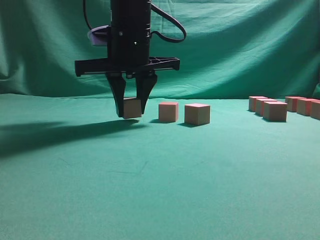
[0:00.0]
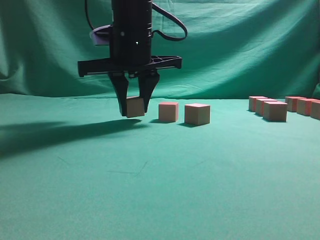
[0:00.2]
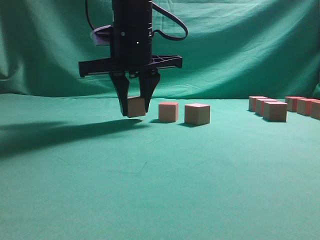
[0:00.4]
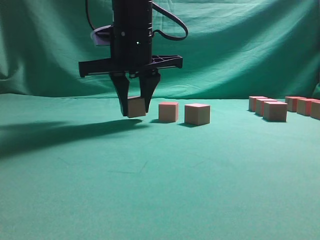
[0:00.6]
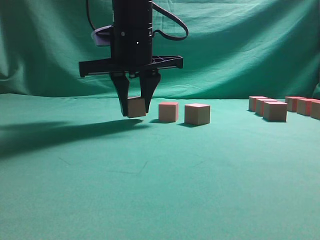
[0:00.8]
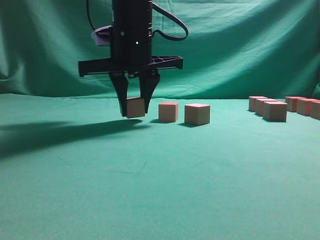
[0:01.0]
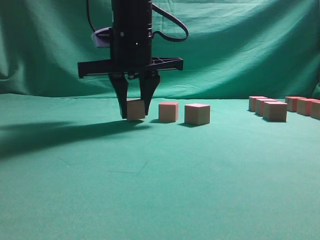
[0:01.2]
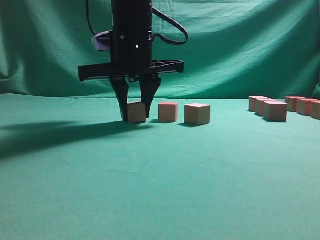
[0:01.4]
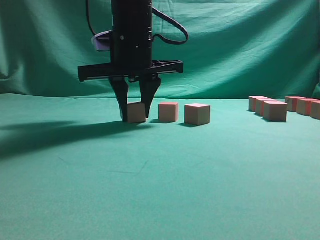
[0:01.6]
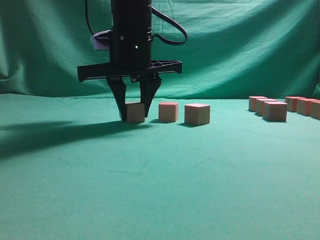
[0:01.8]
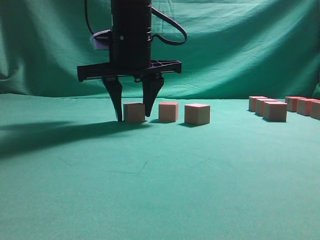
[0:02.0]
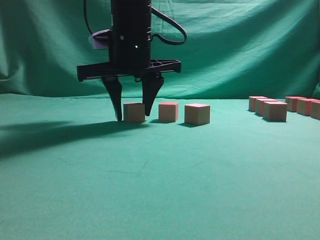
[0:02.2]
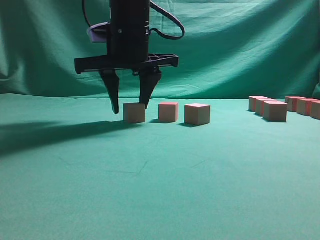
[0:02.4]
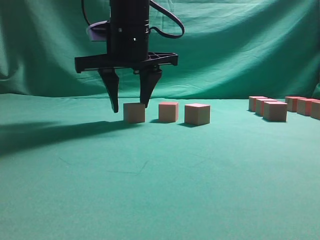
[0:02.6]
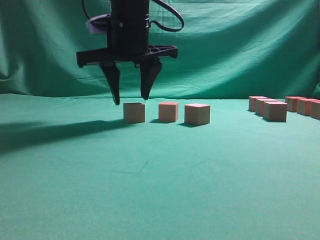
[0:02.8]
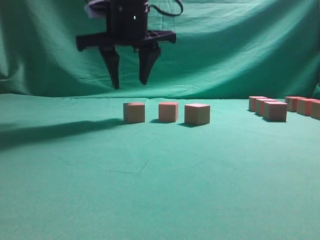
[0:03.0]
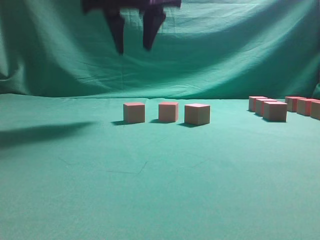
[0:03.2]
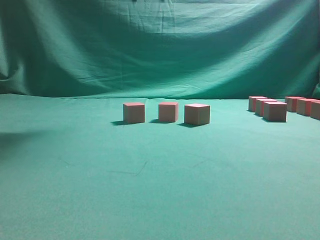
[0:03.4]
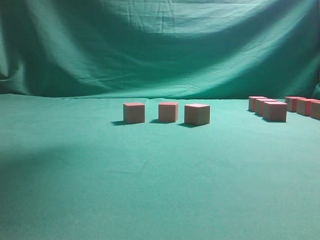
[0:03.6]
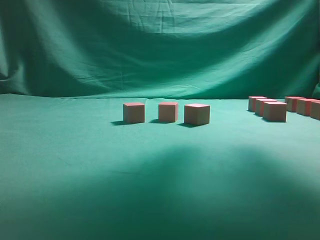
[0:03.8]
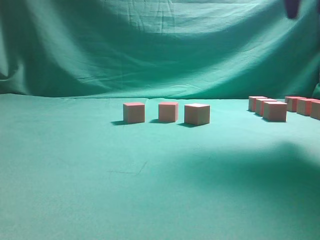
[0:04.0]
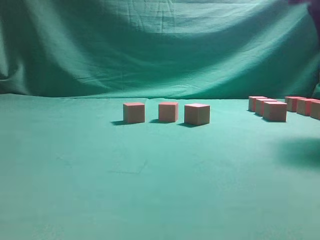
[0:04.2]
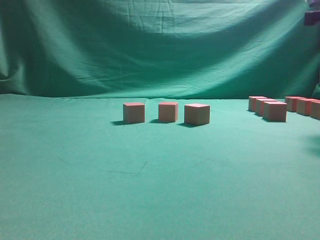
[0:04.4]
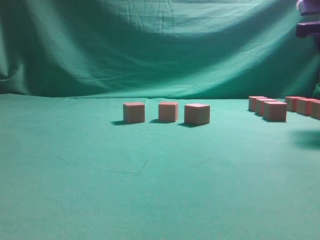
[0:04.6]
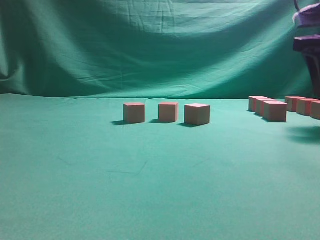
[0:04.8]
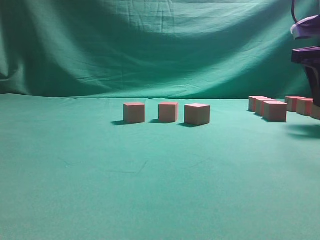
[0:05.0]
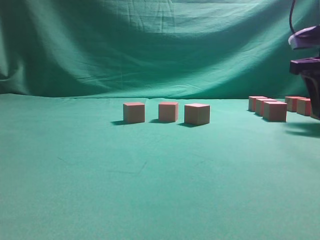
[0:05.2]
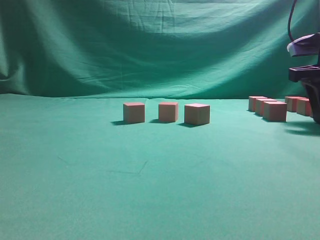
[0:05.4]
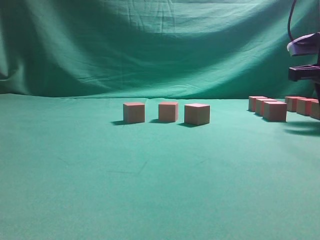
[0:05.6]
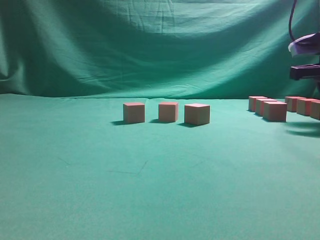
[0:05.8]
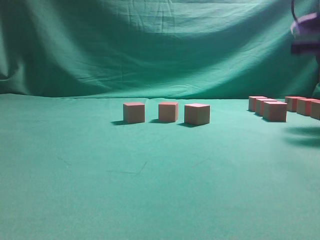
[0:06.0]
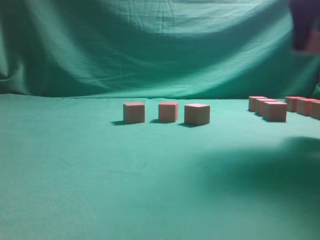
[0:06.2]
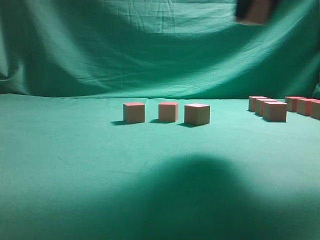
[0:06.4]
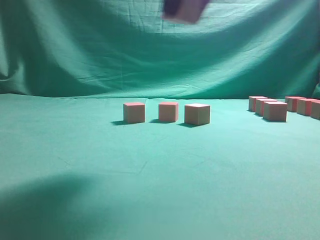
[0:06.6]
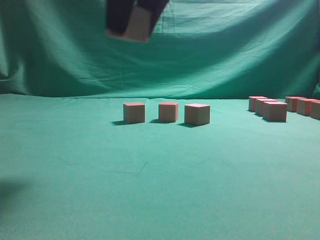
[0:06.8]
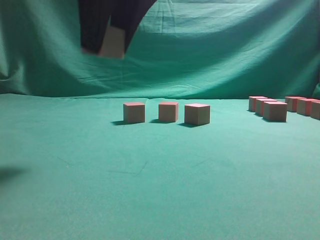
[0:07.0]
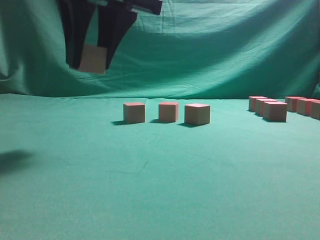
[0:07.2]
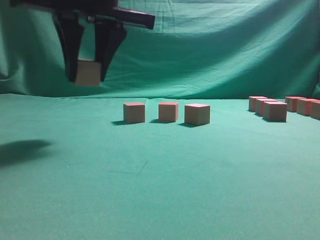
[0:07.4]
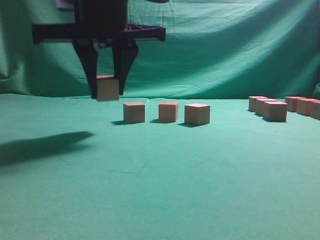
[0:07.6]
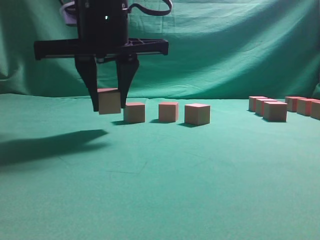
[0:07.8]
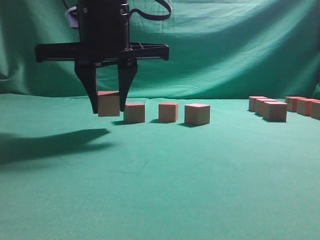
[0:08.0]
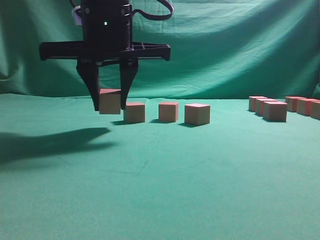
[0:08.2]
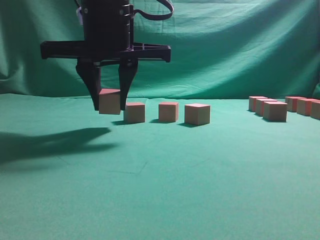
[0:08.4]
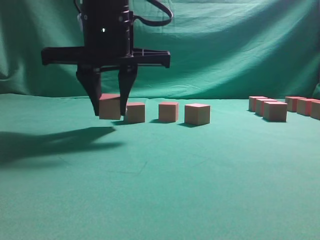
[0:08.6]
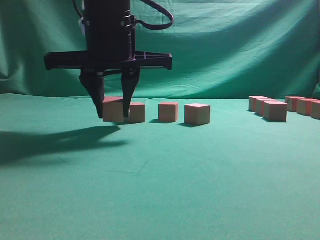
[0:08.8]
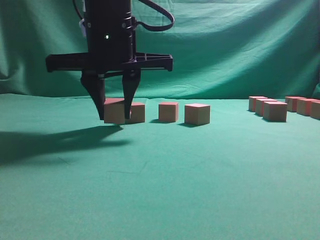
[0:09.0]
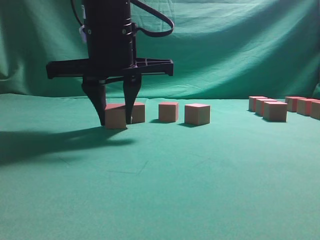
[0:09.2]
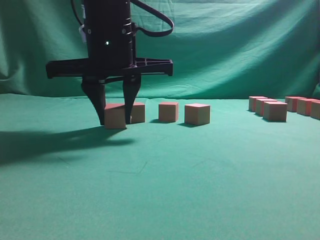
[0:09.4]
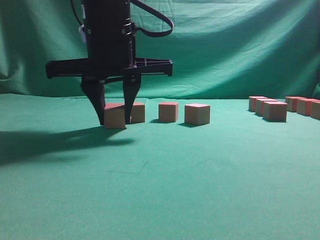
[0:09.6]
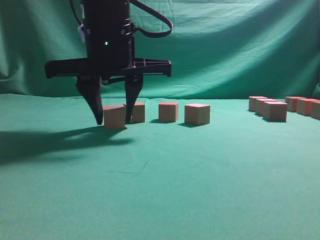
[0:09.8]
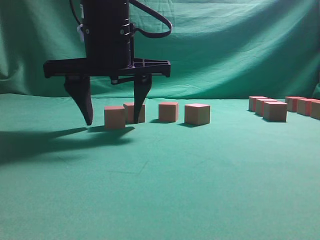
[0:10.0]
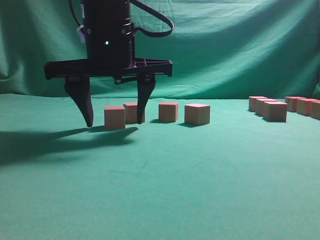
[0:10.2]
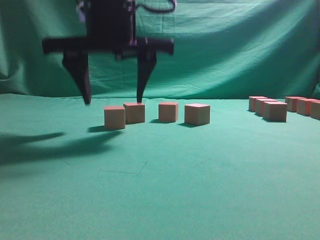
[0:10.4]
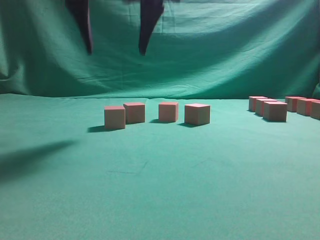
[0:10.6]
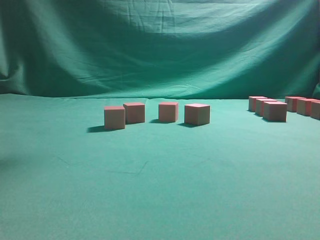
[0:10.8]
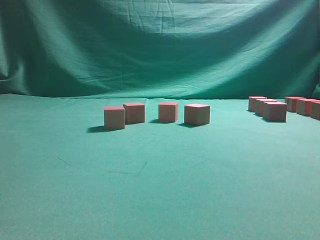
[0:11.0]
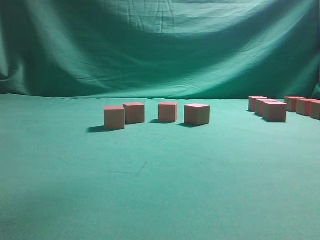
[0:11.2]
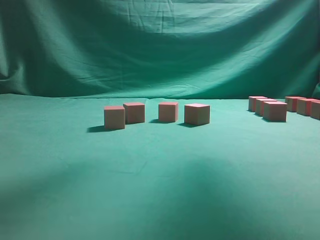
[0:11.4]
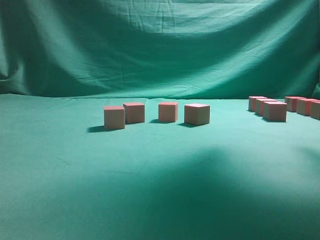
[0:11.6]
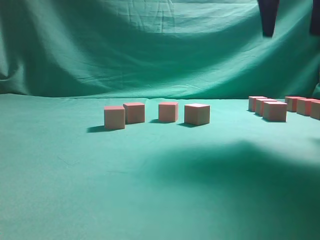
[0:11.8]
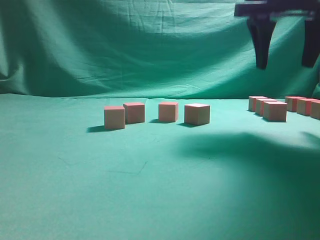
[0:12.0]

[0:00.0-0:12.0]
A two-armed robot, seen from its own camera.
Task of the whole recording: pick up the multiple cubes in two columns one by one and place them in another position on the table.
Step, 0:00.0 to 0:03.0: Place the block at the correct position to assemble the letter S.
Step, 0:03.4 to 0:06.2: Pick up the block on the table.
Step, 0:06.4 to 0:10.6: Place the block at the correct position to assemble the letter S.
0:00.0 to 0:01.6: The two grippers keep their place.
0:01.6 to 0:03.0: The right gripper travels upward by about 5 cm.
0:03.0 to 0:04.4: The right gripper travels to the right by roughly 30 cm.
0:06.0 to 0:07.6: The right gripper goes about 35 cm to the left.
0:09.0 to 0:10.4: The right gripper opens.
0:10.4 to 0:12.0: The right gripper goes some 25 cm to the right.

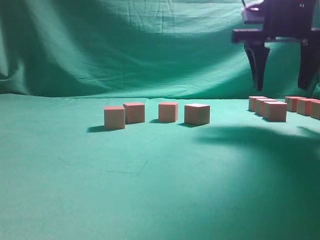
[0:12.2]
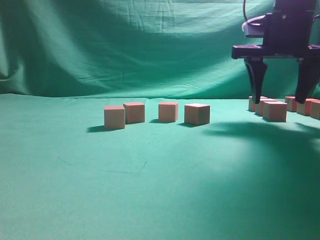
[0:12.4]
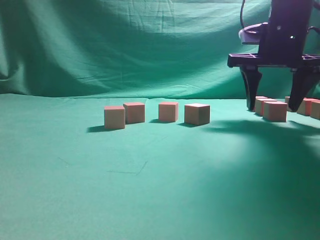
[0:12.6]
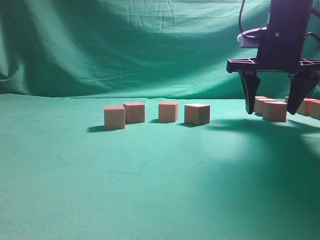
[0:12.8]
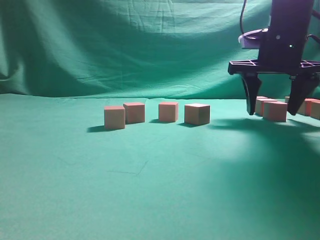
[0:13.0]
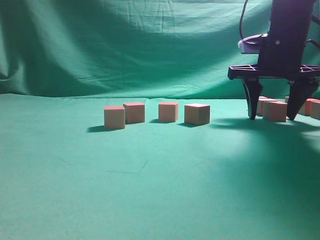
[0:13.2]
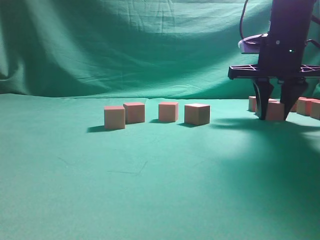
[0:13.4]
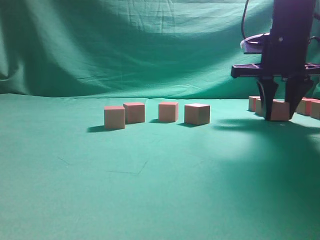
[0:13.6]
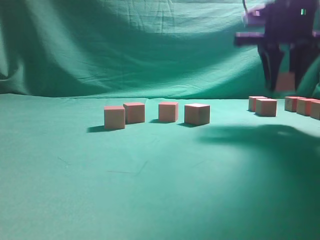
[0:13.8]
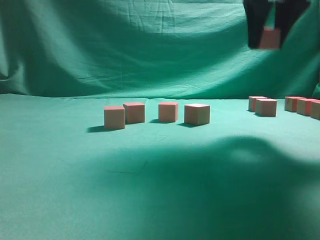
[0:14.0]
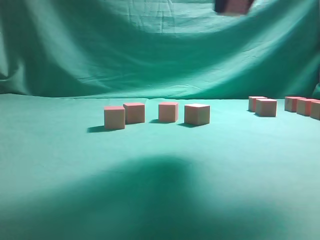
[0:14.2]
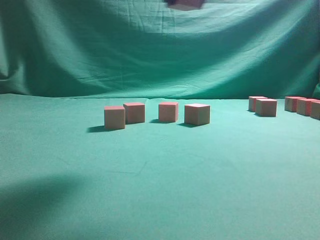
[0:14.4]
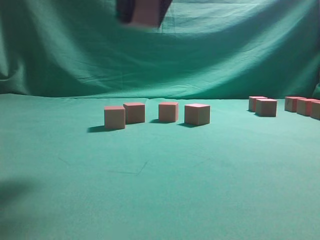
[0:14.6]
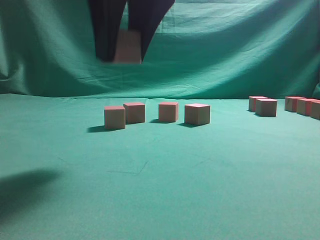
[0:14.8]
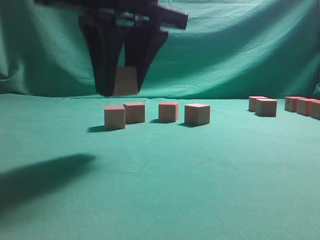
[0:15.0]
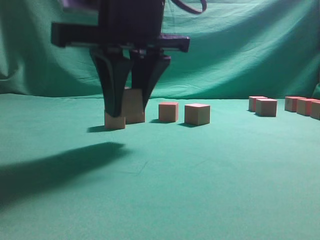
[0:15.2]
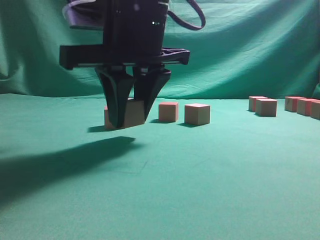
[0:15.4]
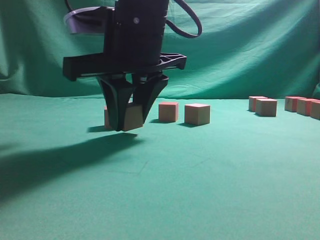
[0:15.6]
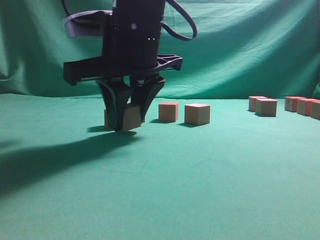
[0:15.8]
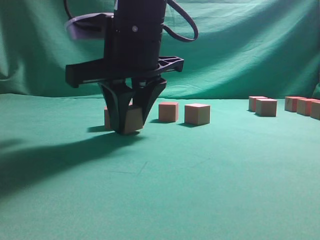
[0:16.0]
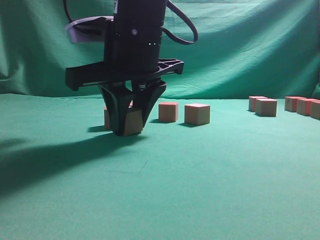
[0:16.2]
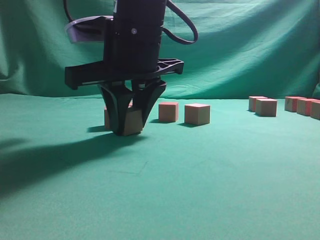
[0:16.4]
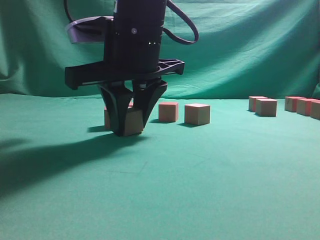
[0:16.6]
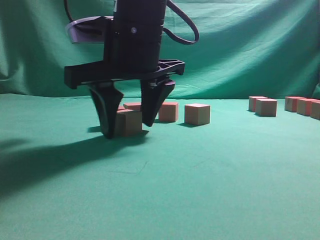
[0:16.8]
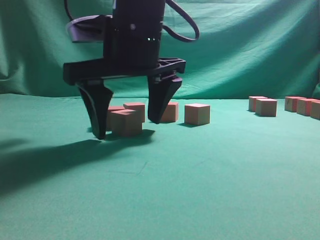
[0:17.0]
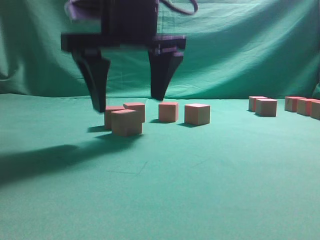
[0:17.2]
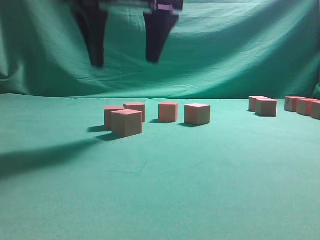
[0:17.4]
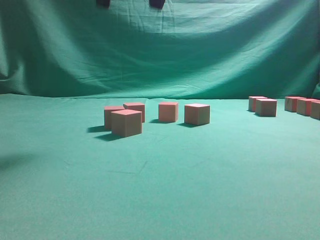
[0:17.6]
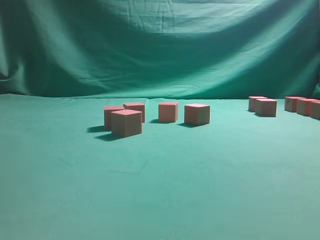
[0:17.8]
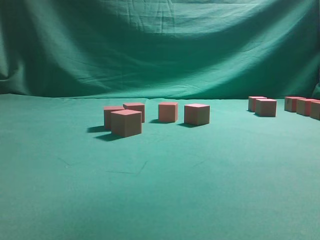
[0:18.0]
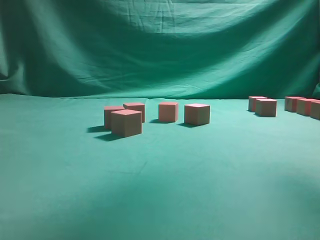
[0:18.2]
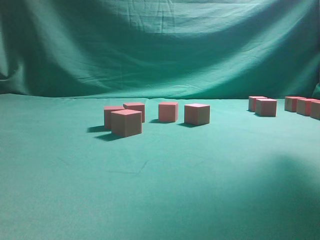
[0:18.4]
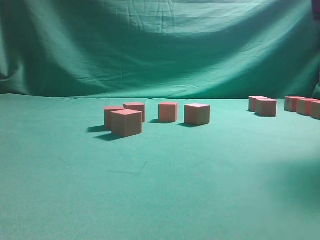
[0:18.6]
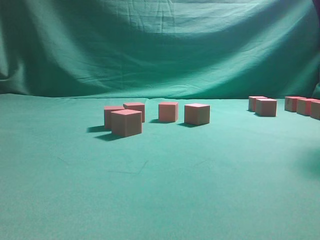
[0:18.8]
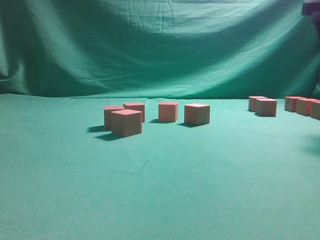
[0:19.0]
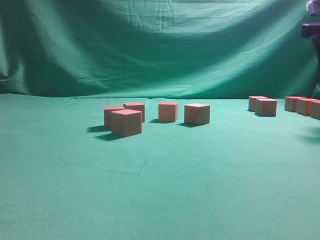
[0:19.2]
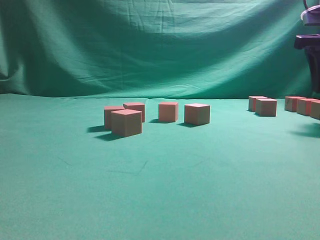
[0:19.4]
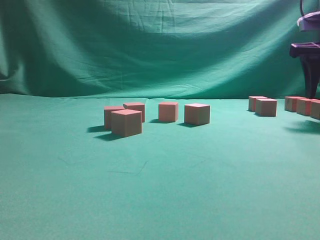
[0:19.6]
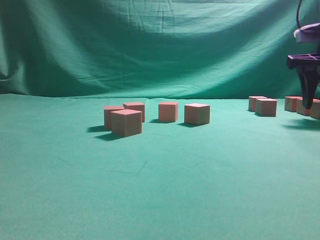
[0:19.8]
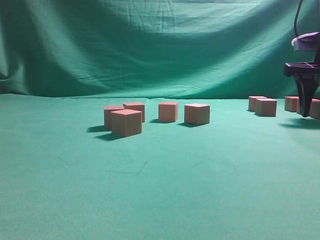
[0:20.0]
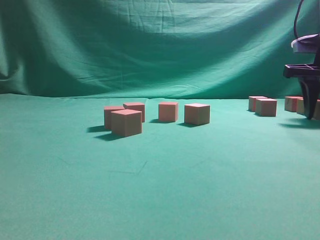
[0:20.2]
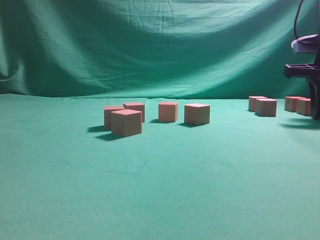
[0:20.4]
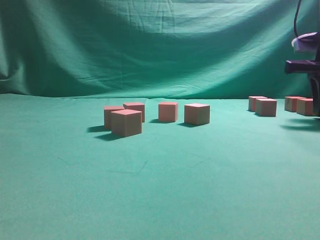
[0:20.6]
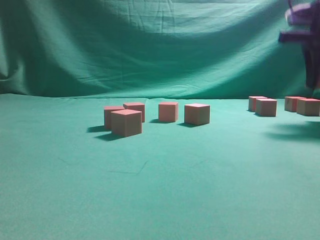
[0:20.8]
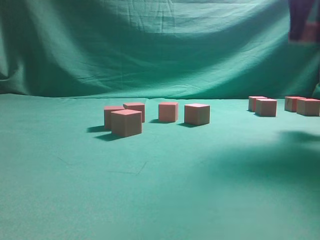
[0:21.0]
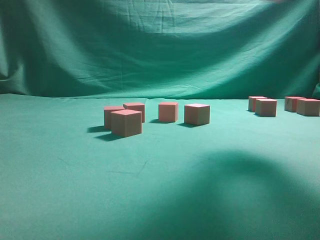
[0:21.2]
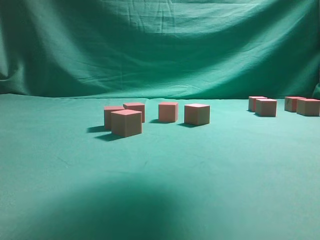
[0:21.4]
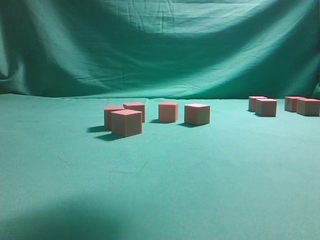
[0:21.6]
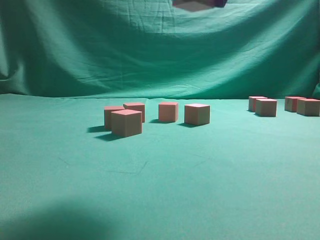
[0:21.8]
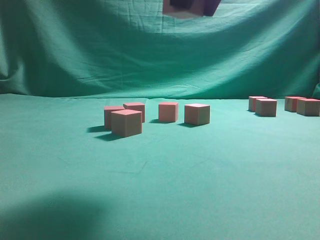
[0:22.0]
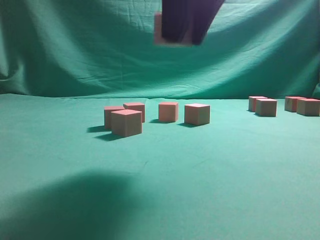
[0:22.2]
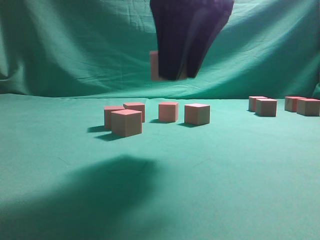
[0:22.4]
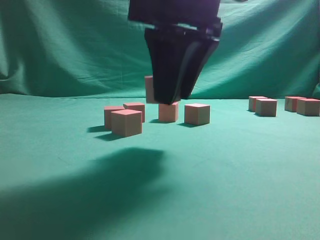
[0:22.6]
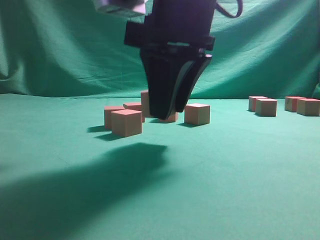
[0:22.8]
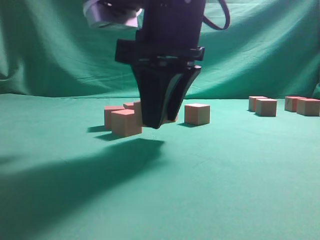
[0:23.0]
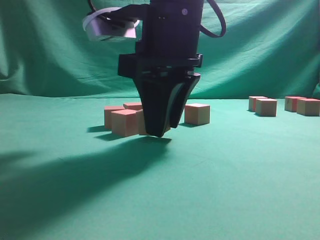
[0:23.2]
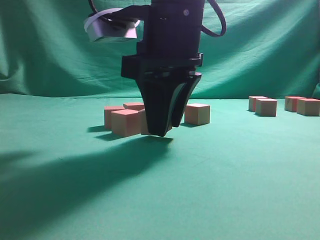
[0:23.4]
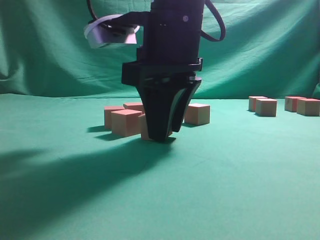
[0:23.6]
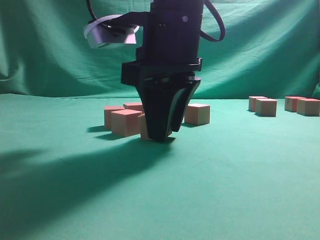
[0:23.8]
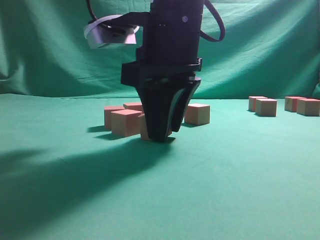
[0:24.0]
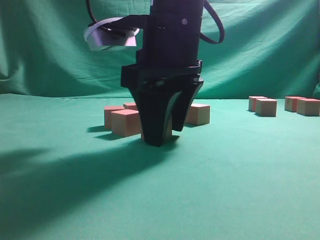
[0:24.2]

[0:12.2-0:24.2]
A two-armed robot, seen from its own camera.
Task of the whole recording: pick up the multiple cubes in two columns one by one and place them in another position on the table.
Step, 0:12.2 to 0:14.0: Pick up the block on the table.
Step, 0:14.2 to 0:17.4: Place the block at the correct position to assemble the letter S.
Step, 0:17.6 to 0:21.0: Pick up the block on the table.
0:12.2 to 0:13.8: The right gripper closes.
0:13.8 to 0:15.2: The right gripper goes some 25 cm to the left and backward.
0:15.2 to 0:16.6: The grippers stay close to where they were, moving slightly.
0:16.6 to 0:18.2: The right gripper is displaced upward and to the right by about 35 cm, and opens.
0:18.2 to 0:19.8: The right gripper goes approximately 25 cm downward and to the right.
0:19.8 to 0:21.2: The right gripper is displaced upward, to the left and backward by some 20 cm, and closes up.
0:21.2 to 0:22.6: The right gripper shifts approximately 20 cm to the left and downward.
0:22.6 to 0:24.2: The right gripper changes place by approximately 5 cm.
